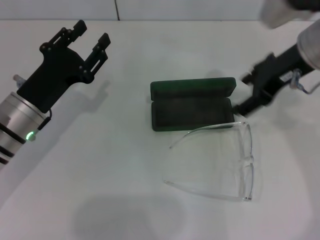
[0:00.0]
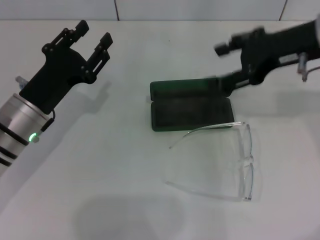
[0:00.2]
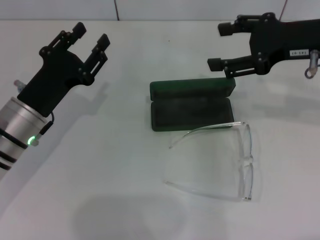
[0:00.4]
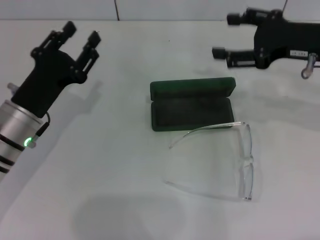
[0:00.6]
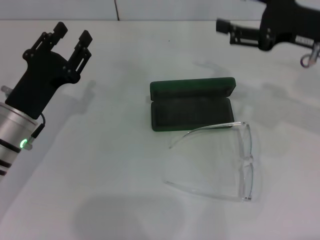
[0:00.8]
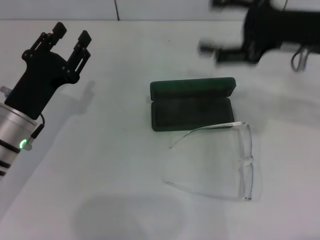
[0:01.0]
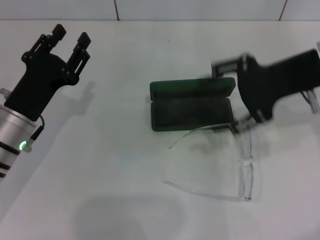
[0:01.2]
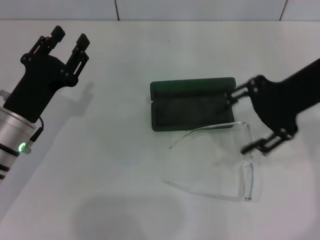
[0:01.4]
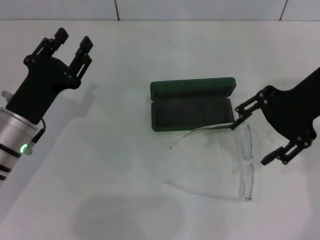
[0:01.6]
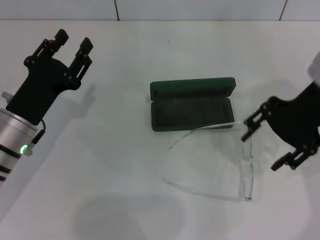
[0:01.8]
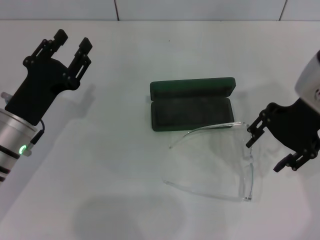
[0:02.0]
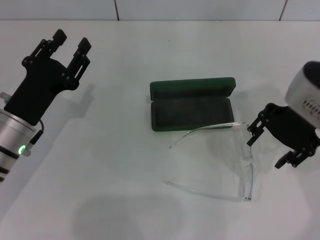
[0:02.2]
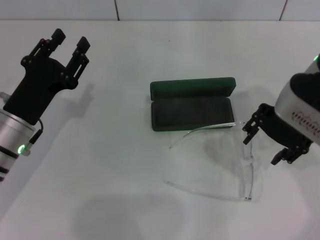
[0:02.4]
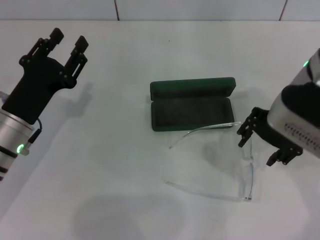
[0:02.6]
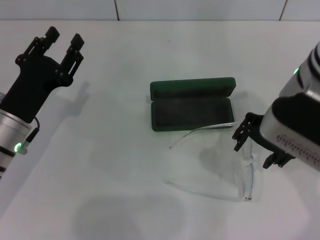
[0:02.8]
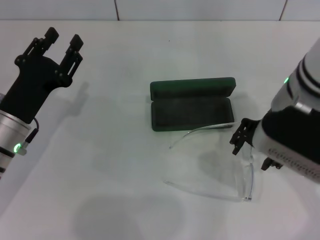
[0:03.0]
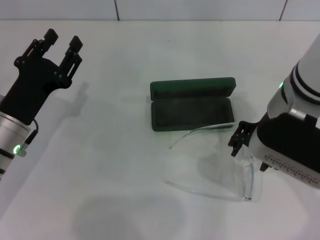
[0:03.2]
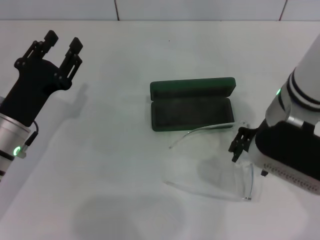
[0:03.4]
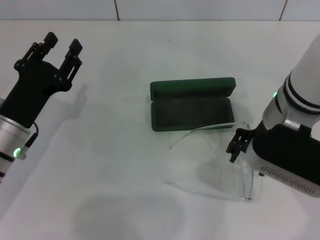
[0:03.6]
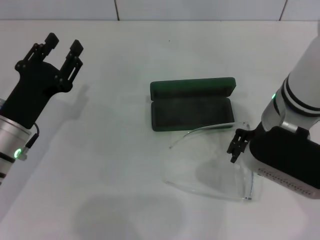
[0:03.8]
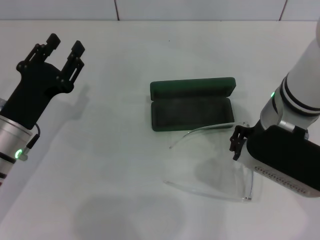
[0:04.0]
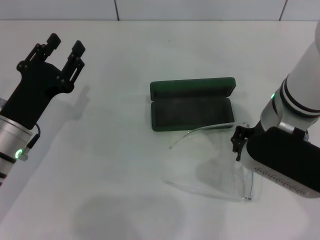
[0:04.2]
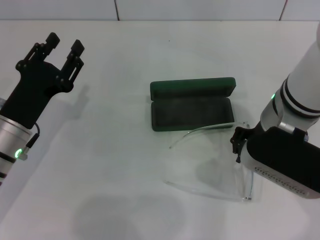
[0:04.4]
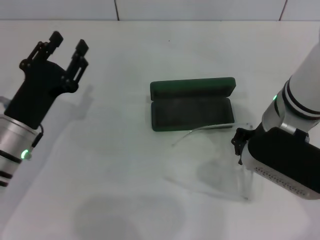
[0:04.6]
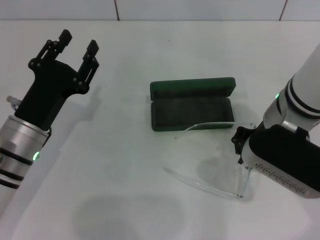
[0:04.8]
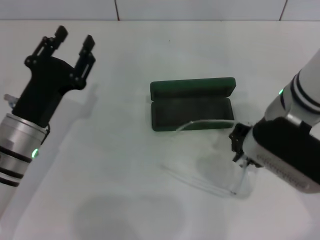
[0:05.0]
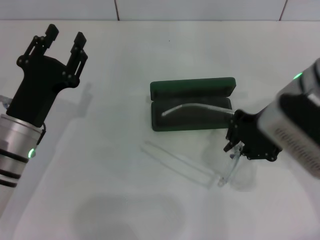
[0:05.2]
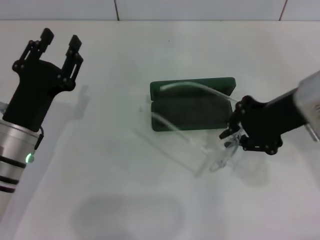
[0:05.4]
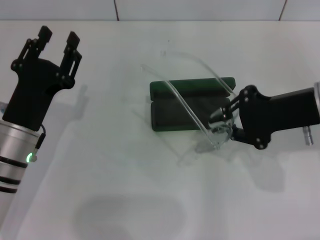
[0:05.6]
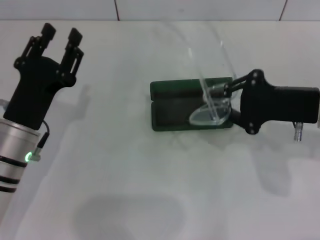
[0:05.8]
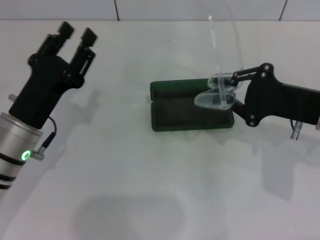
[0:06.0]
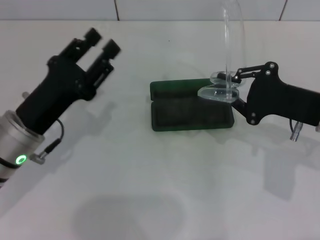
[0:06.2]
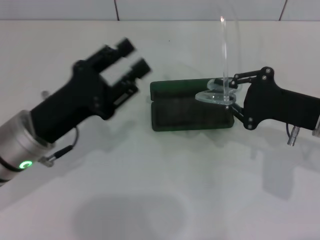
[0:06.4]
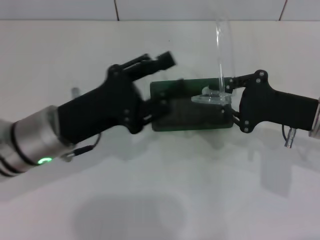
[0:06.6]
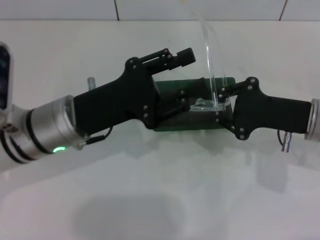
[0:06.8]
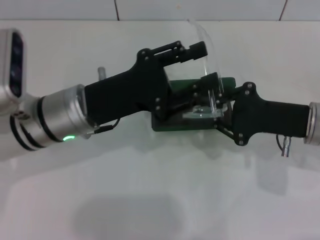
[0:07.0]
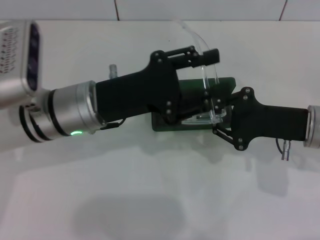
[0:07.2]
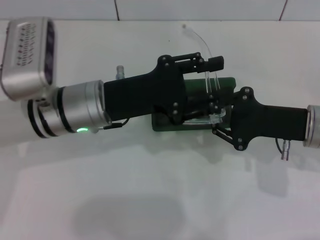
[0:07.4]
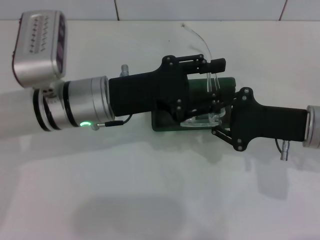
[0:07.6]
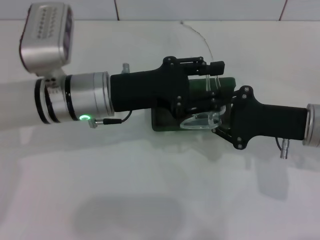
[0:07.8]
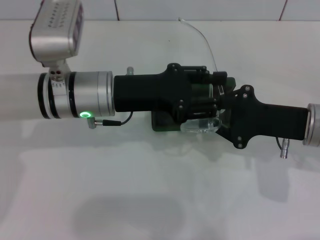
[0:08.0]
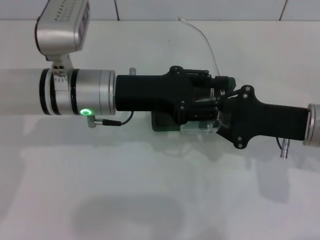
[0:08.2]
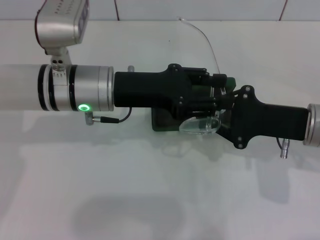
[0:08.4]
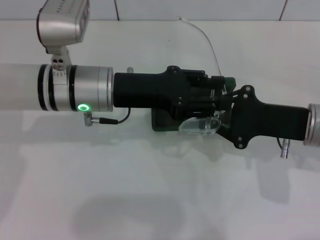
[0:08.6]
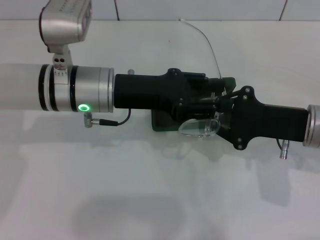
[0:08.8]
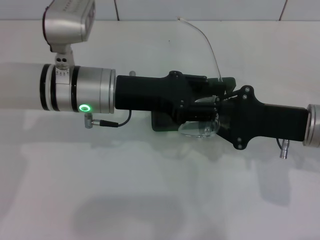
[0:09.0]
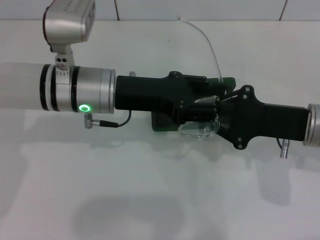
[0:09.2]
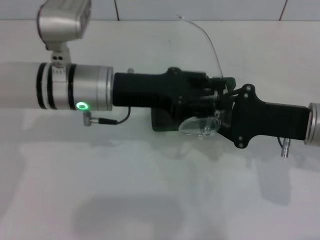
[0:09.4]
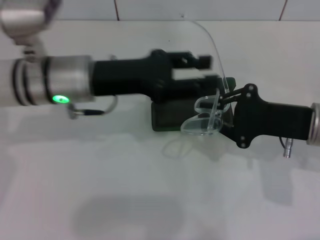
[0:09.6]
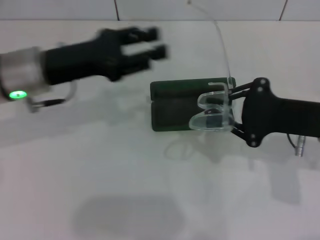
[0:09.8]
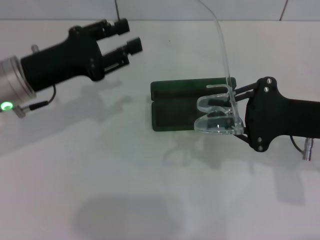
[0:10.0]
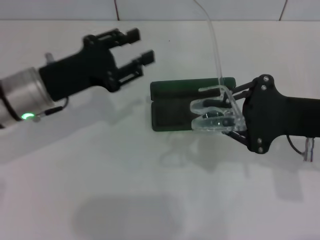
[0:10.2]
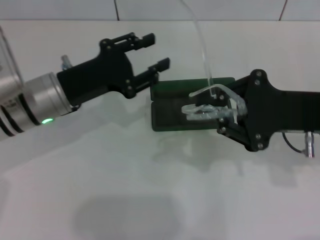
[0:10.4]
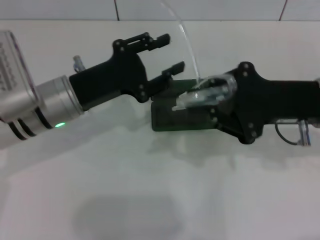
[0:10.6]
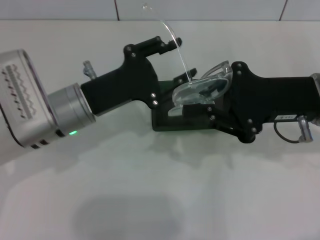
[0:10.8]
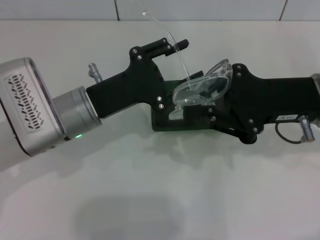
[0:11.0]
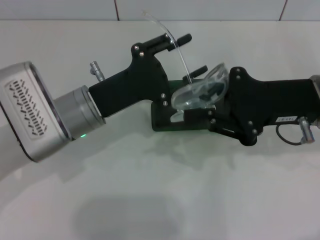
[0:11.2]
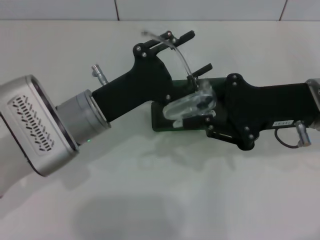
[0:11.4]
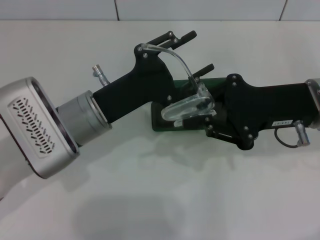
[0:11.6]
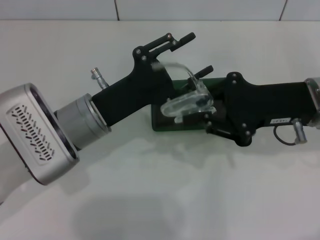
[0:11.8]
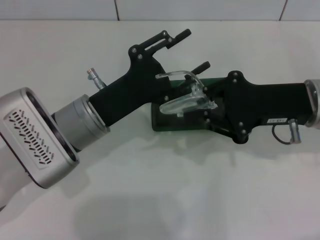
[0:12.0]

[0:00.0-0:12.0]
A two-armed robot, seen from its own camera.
Step, 0:00.0 to 0:04.4: Grab the eyeglass frame with your right hand.
0:01.6 to 0:03.0: The right gripper goes roughly 10 cm to the left and downward.
0:03.0 to 0:04.4: The right gripper closes its fingers.
0:04.4 to 0:06.0: The right gripper shifts some 10 cm to the right.
0:06.0 to 0:07.6: The left gripper is displaced to the right, forward and upward by roughly 10 cm.
0:09.0 to 0:10.4: The left gripper shifts approximately 5 cm to the left.
0:10.4 to 0:12.0: The left gripper heads to the right, covering roughly 5 cm.

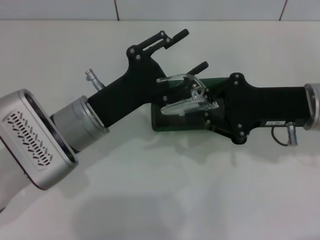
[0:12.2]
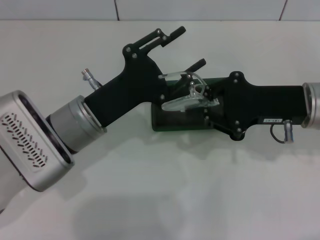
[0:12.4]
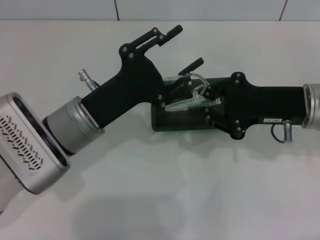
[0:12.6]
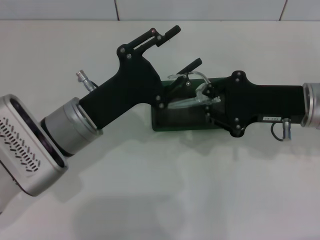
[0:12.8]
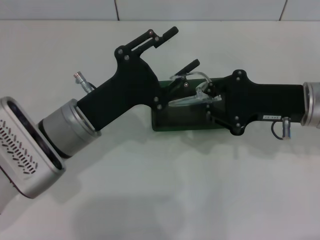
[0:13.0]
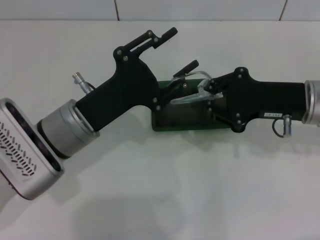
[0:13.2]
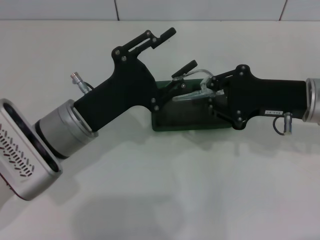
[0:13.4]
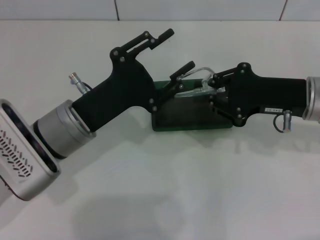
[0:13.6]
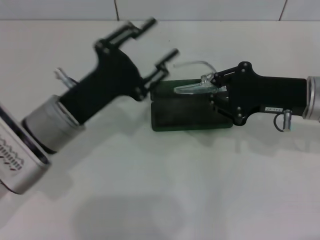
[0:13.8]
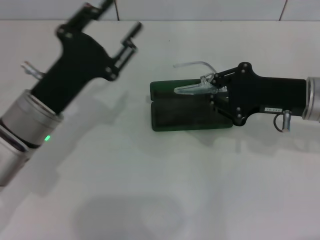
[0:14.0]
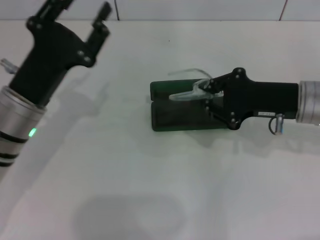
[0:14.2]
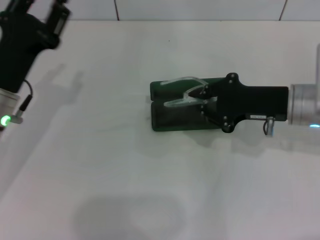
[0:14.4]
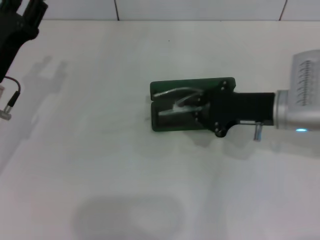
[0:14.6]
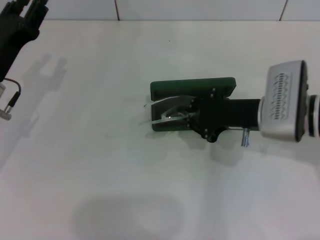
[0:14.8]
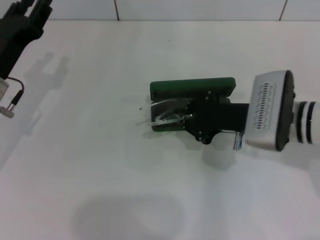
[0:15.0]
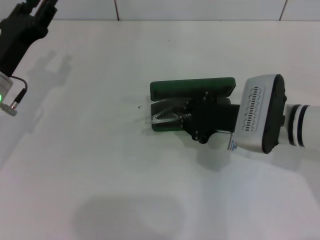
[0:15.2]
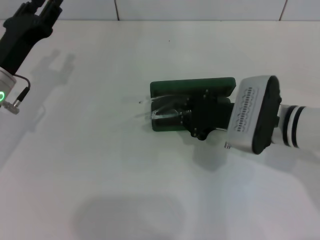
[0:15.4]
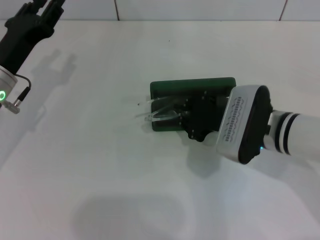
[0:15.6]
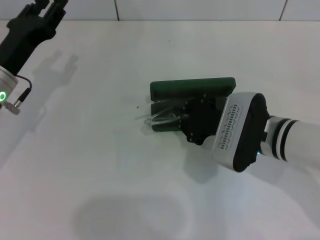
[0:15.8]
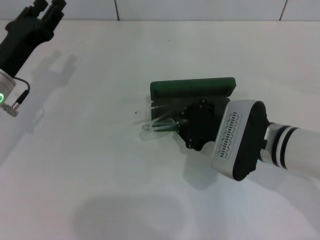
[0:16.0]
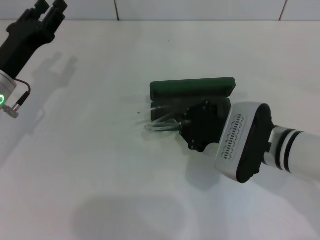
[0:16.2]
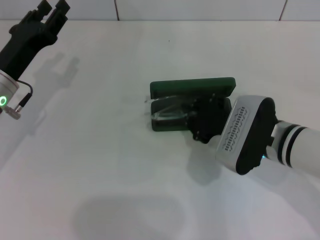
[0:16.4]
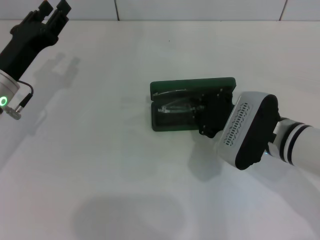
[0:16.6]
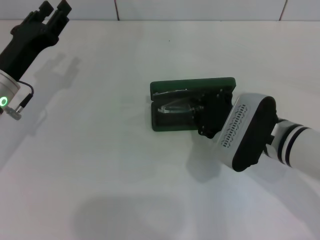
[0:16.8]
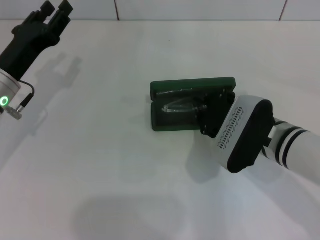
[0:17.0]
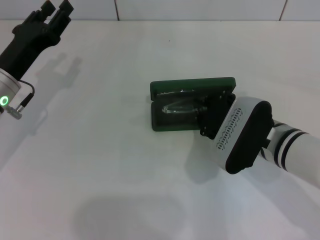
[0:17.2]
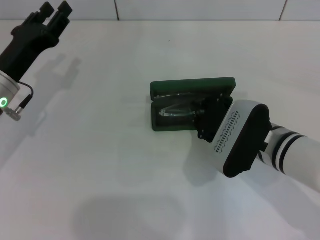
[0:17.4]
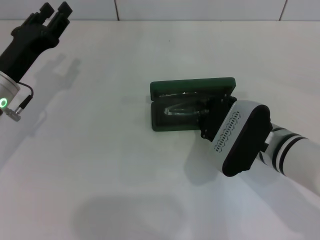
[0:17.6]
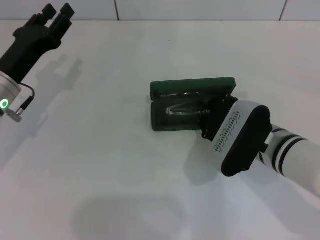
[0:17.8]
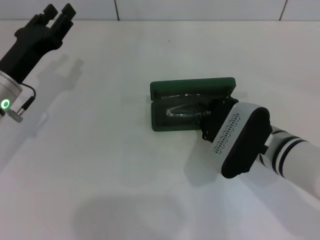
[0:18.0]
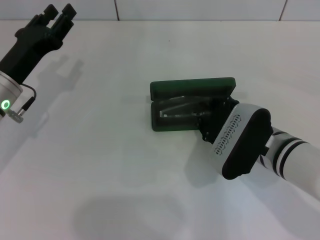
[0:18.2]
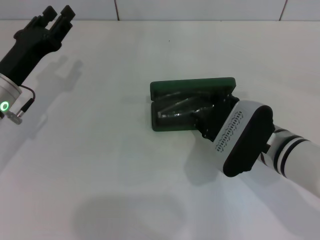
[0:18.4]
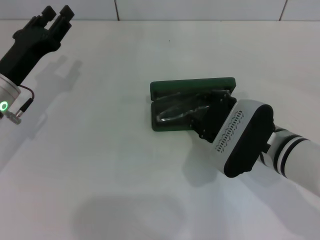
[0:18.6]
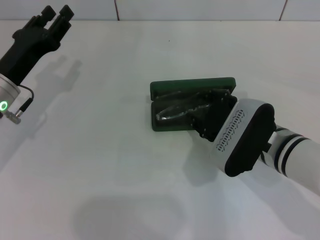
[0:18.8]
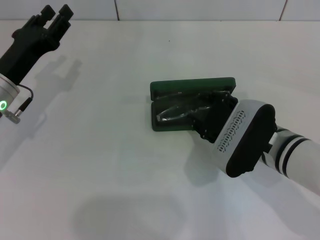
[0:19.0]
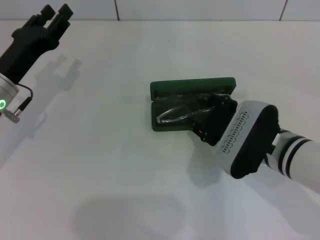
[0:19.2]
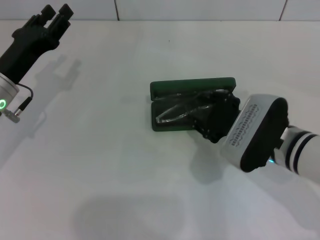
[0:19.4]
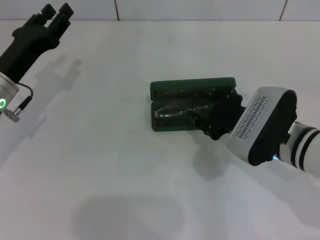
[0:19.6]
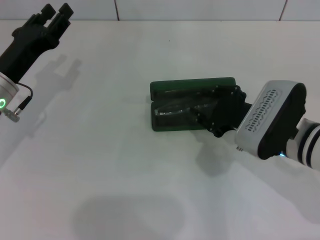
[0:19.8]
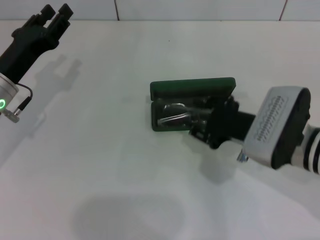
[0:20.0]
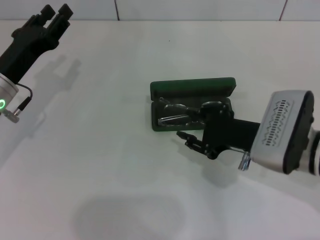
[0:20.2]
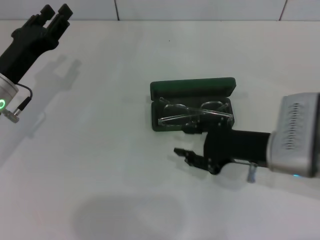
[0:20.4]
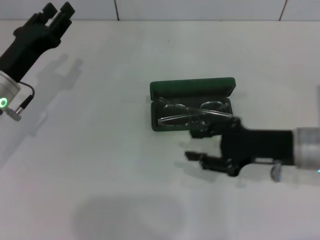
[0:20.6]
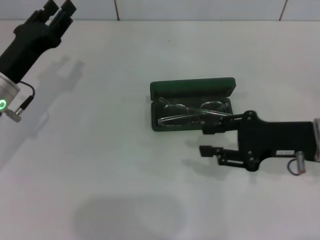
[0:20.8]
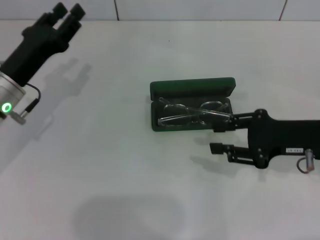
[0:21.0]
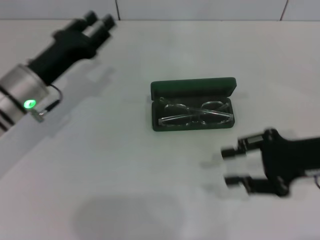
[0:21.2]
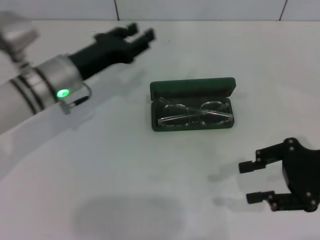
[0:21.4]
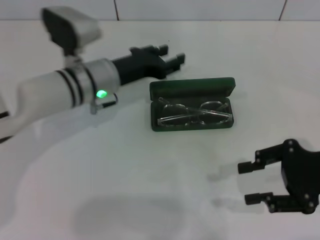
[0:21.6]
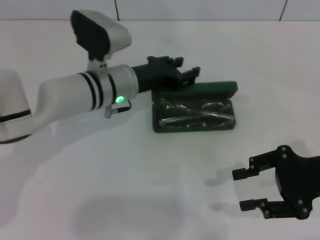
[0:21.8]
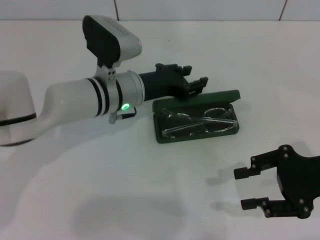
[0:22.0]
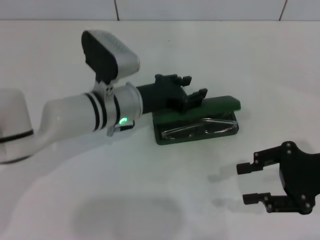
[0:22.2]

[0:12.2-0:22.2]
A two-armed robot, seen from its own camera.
Step, 0:13.2 to 0:20.8: Put the glasses into the case with your right hand.
0:12.2 to 0:13.6: There are only small adjustments of the grippers.
0:13.6 to 0:15.0: The left gripper moves to the left and forward, some 10 cm. The right gripper heads to the left, covering roughly 5 cm.
0:15.0 to 0:16.4: There are only small adjustments of the grippers.
0:16.4 to 0:18.0: The grippers make only small movements.
0:18.0 to 0:19.4: The right gripper opens its fingers.
0:19.4 to 0:20.8: The right gripper shifts approximately 10 cm to the right.
0:20.8 to 0:22.2: The right gripper shifts by some 5 cm. Meanwhile the left gripper shifts some 15 cm to the right.
